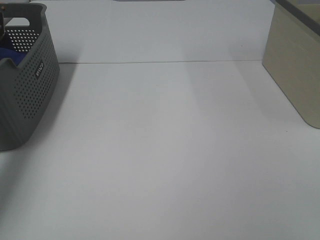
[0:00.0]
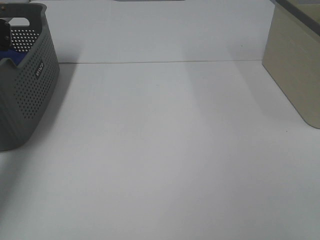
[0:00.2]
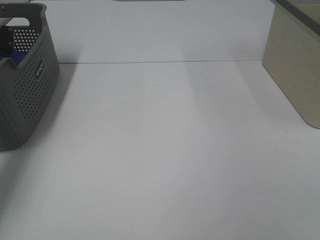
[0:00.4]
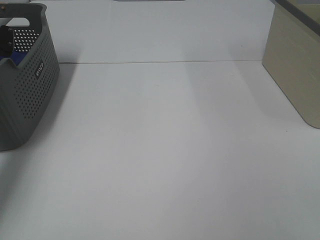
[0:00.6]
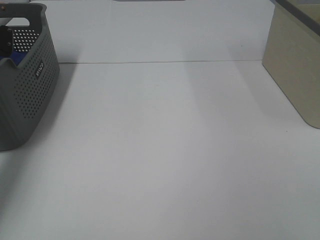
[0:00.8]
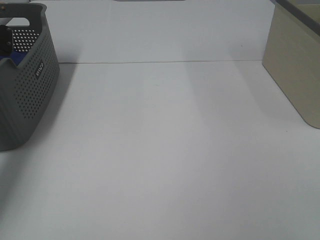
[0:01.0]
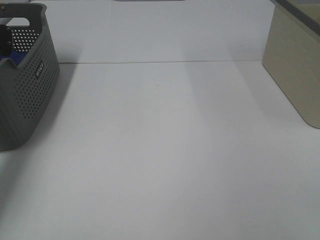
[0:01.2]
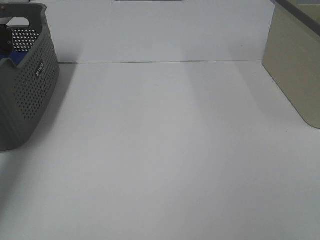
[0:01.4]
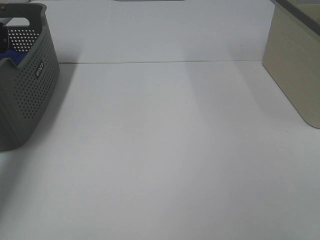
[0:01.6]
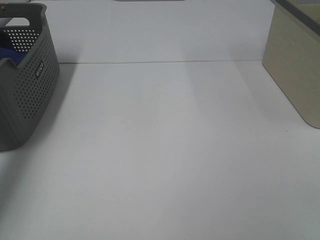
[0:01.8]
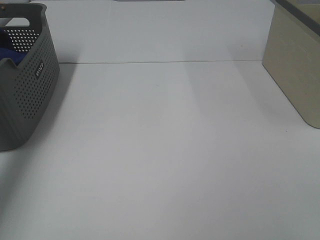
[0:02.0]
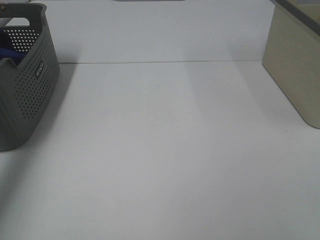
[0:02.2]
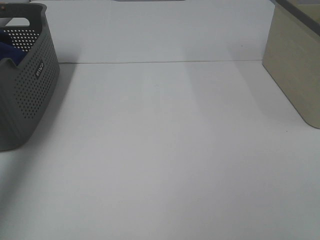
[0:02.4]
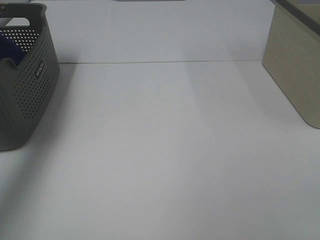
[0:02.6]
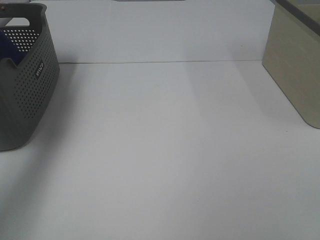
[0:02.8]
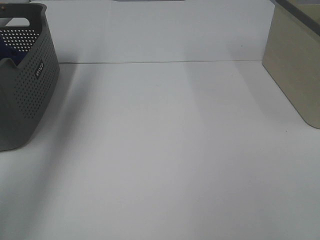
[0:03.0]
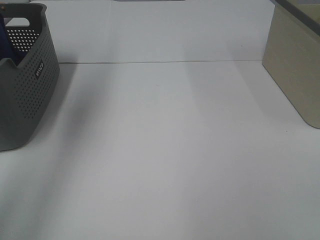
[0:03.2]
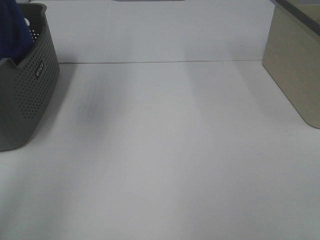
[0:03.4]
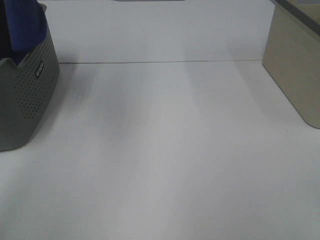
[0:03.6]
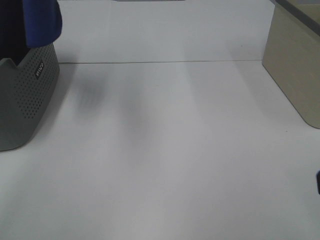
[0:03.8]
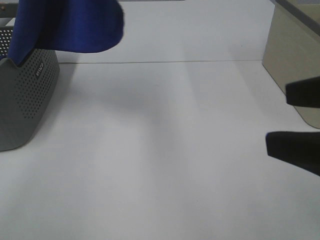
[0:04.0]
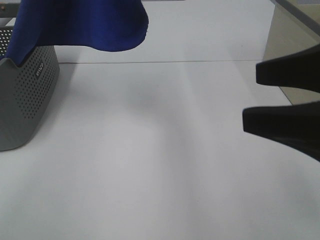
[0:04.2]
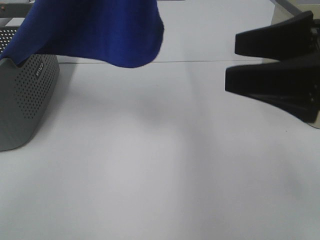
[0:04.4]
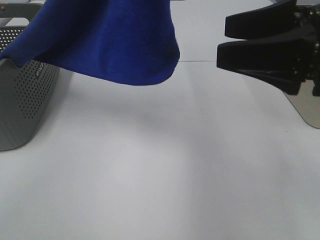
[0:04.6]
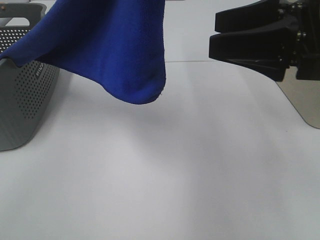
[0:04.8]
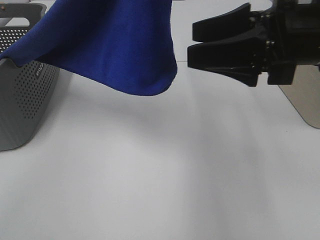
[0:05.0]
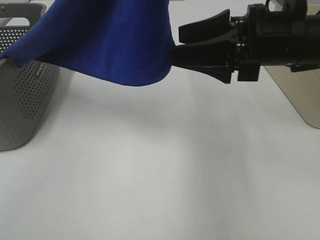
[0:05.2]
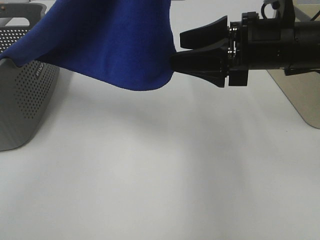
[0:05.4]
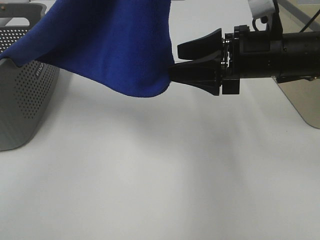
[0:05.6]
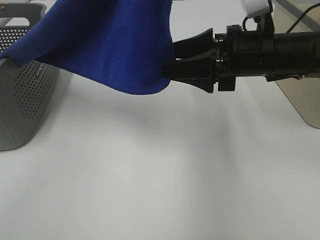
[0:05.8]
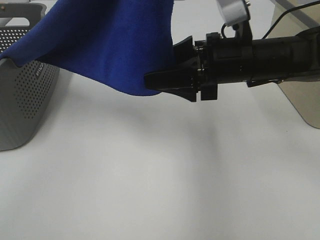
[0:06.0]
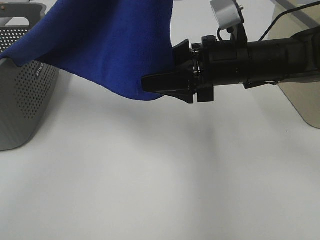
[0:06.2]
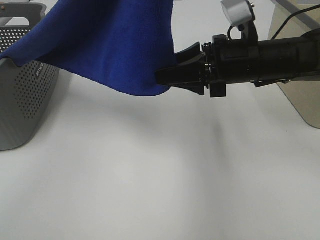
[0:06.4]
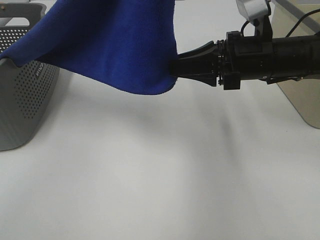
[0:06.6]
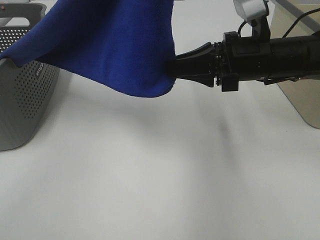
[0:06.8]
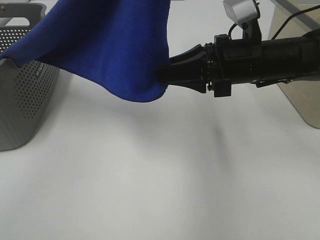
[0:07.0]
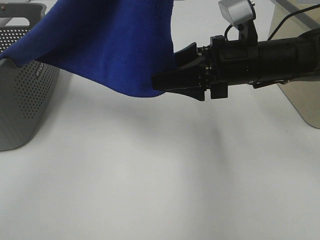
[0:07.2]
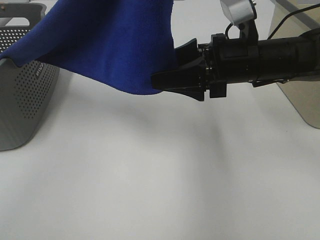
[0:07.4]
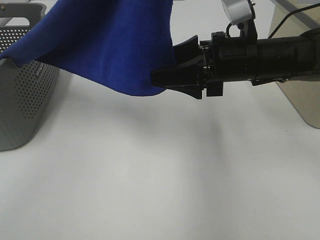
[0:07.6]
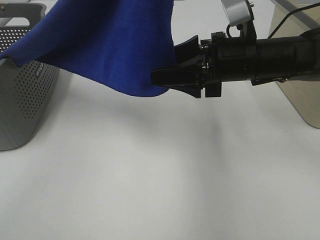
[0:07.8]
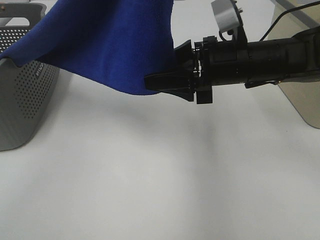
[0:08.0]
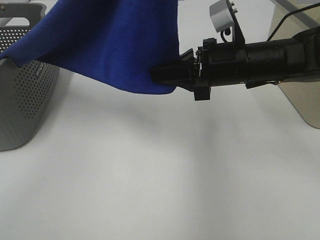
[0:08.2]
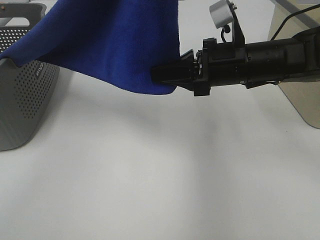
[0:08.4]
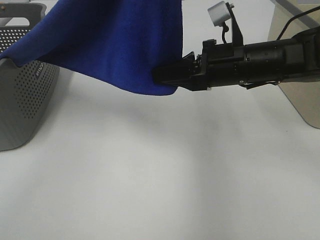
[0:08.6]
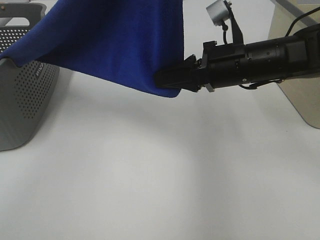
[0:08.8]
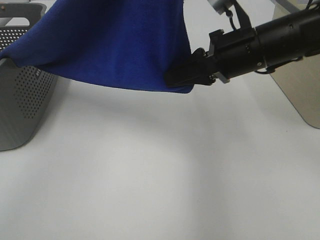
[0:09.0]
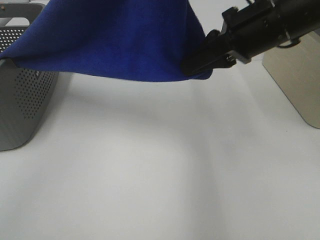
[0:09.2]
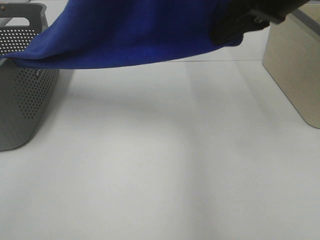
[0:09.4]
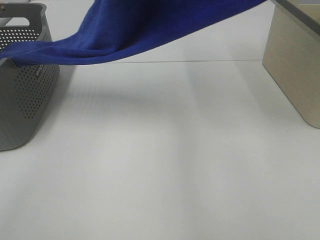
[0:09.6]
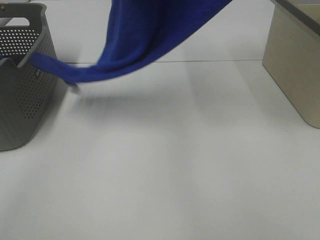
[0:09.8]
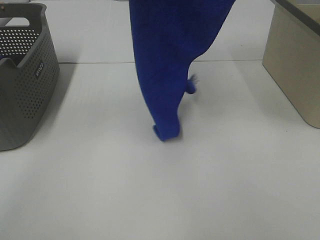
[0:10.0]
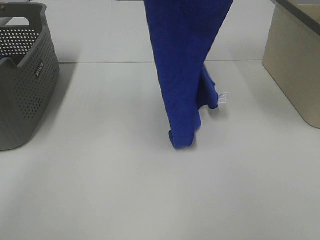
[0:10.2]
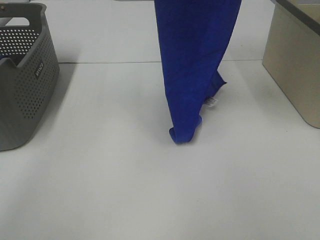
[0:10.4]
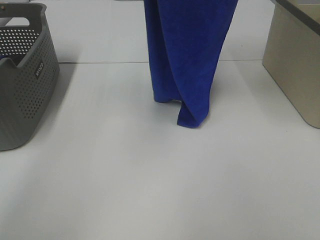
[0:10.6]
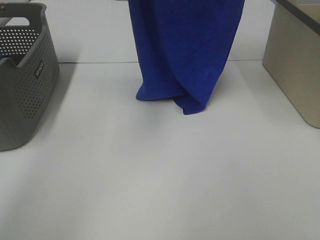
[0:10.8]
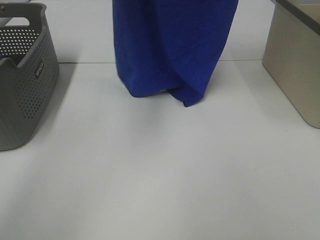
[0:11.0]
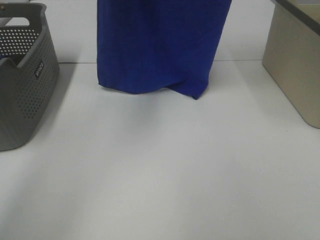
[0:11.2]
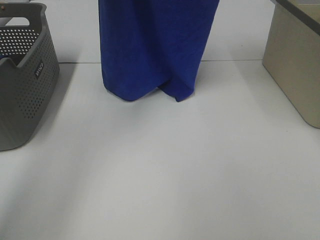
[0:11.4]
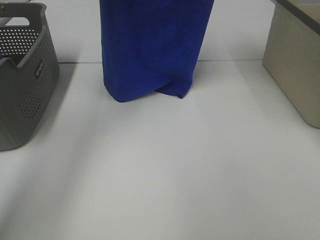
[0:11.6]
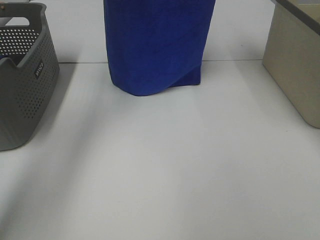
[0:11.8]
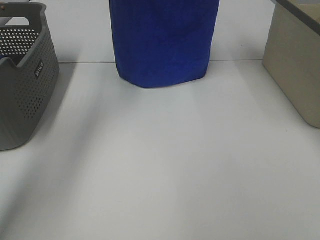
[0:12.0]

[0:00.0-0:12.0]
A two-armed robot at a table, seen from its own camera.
Task of the whole recording: Remove the towel and place it.
Step, 0:02.6 to 0:08.4: Right hand: grab a corner of the blue towel and straighten it.
0:01.6 to 0:03.0: The left gripper travels upward by approximately 25 cm.
0:03.0 to 0:04.4: The right gripper shifts approximately 20 cm forward; the left gripper goes roughly 30 cm to the right and backward.
0:04.4 to 0:06.0: The right gripper moves forward, downward and to the left, about 20 cm.
0:06.0 to 0:07.6: The right gripper closes, then opens again.
0:07.6 to 0:09.0: The right gripper closes.
0:09.0 to 0:10.4: The right gripper shifts roughly 25 cm upward. Meanwhile the left gripper travels forward and to the left by roughly 15 cm.
0:10.4 to 0:12.0: The left gripper travels forward and to the left by approximately 15 cm. The right gripper is displaced forward by some 10 cm.

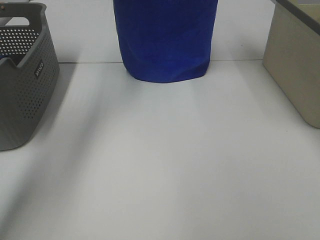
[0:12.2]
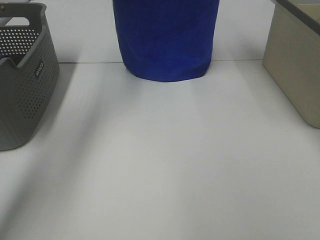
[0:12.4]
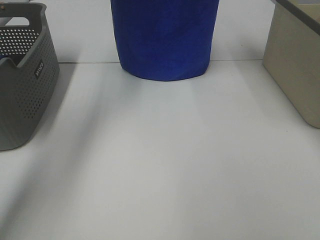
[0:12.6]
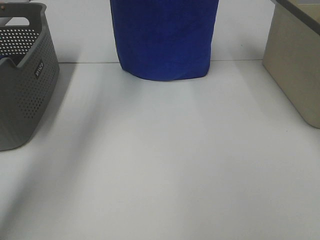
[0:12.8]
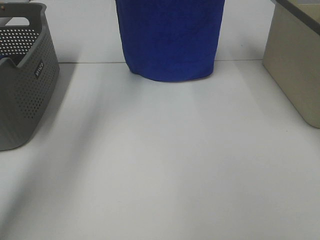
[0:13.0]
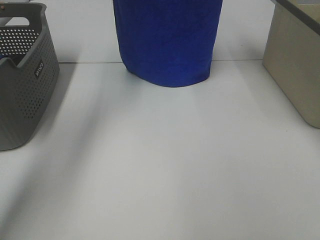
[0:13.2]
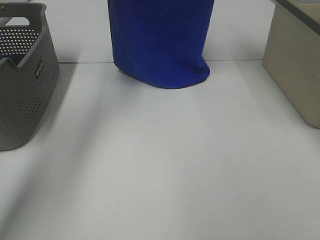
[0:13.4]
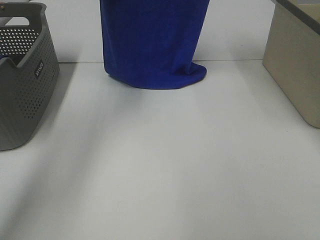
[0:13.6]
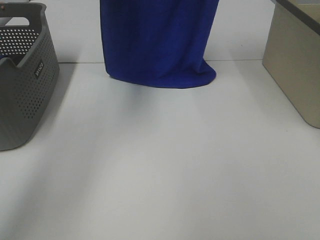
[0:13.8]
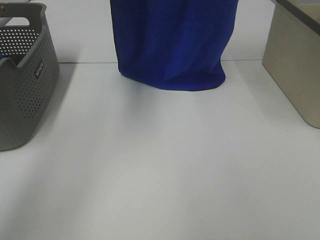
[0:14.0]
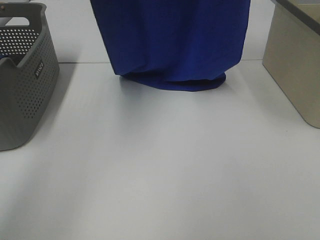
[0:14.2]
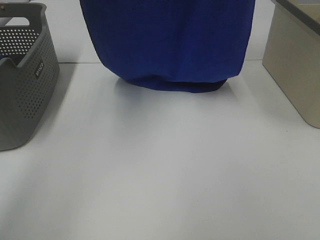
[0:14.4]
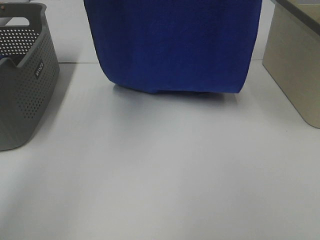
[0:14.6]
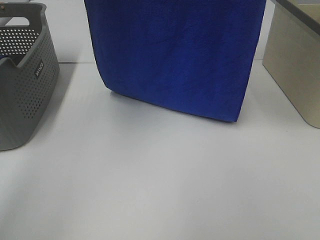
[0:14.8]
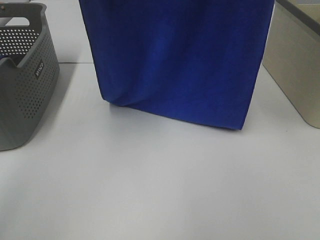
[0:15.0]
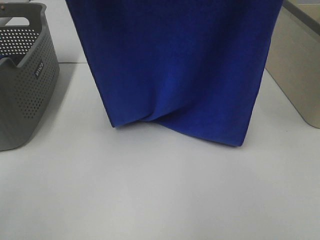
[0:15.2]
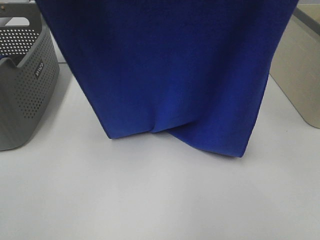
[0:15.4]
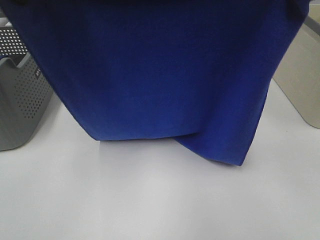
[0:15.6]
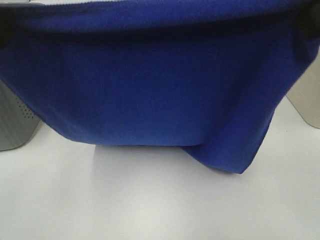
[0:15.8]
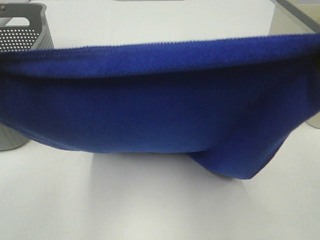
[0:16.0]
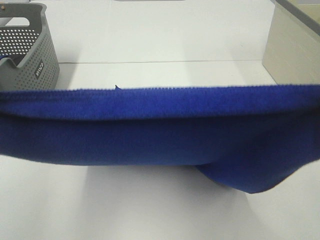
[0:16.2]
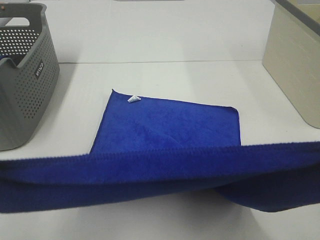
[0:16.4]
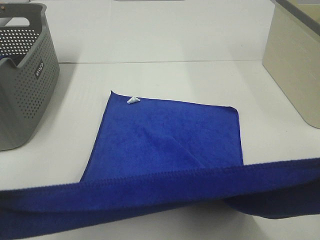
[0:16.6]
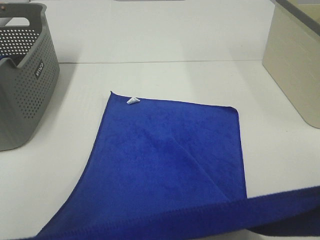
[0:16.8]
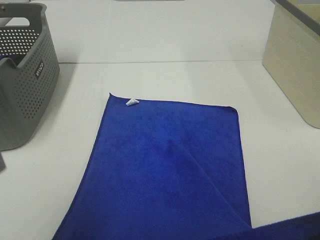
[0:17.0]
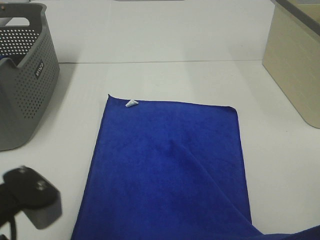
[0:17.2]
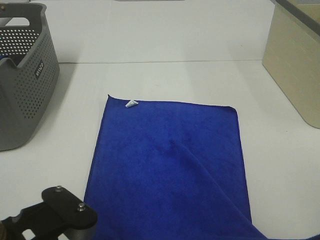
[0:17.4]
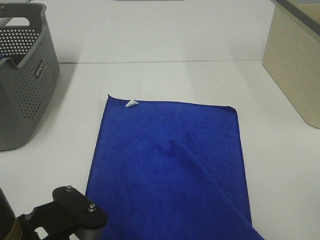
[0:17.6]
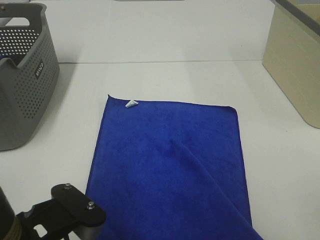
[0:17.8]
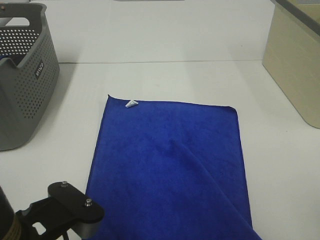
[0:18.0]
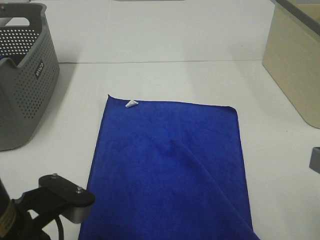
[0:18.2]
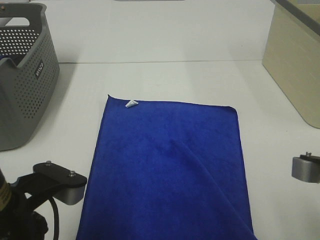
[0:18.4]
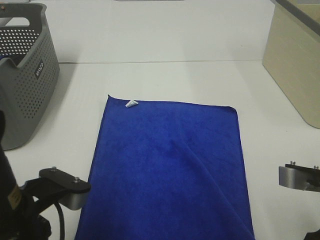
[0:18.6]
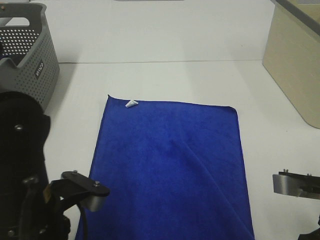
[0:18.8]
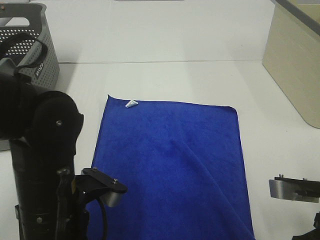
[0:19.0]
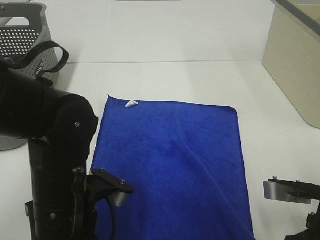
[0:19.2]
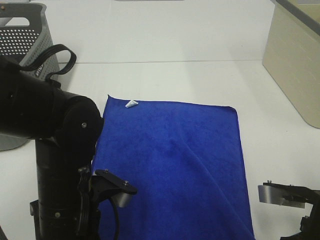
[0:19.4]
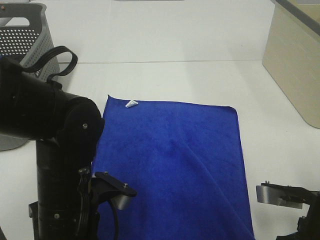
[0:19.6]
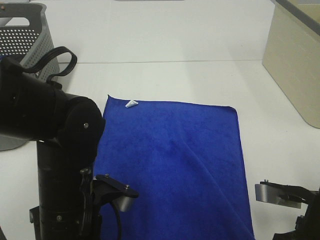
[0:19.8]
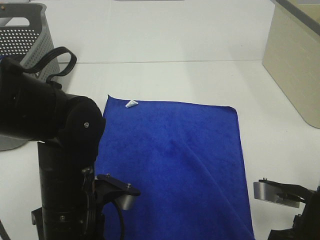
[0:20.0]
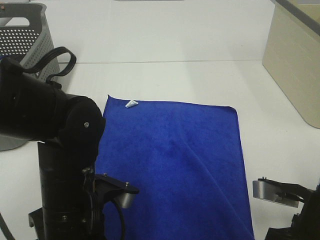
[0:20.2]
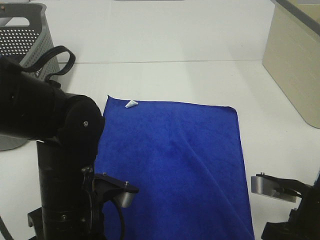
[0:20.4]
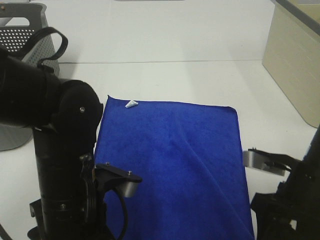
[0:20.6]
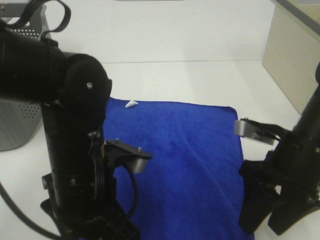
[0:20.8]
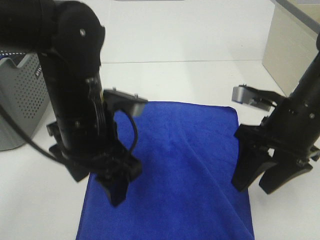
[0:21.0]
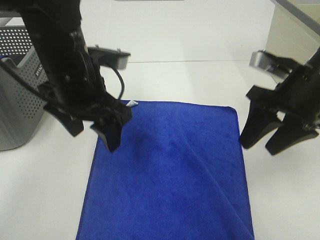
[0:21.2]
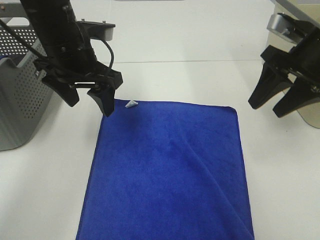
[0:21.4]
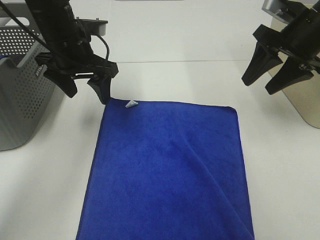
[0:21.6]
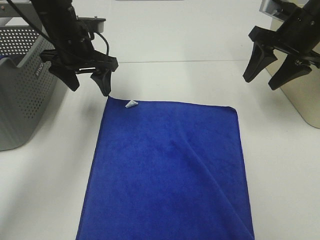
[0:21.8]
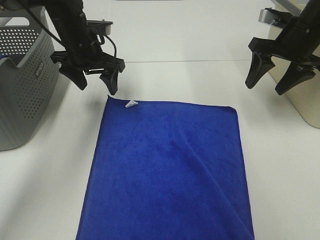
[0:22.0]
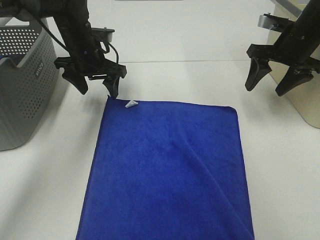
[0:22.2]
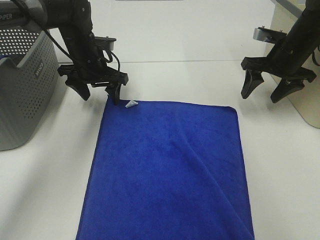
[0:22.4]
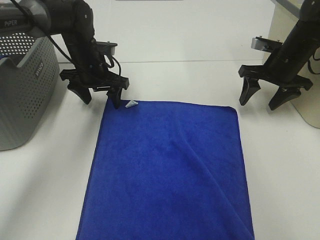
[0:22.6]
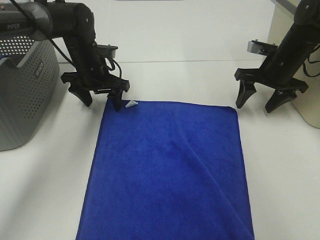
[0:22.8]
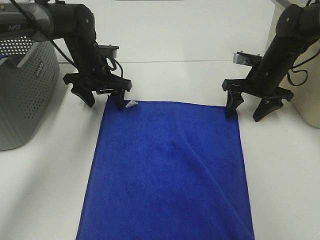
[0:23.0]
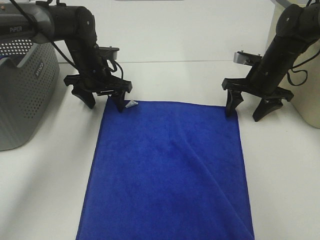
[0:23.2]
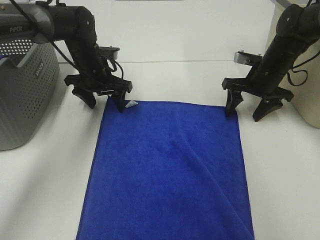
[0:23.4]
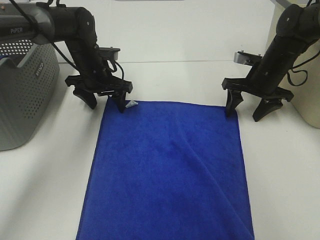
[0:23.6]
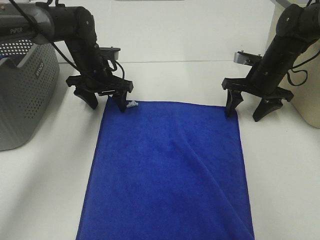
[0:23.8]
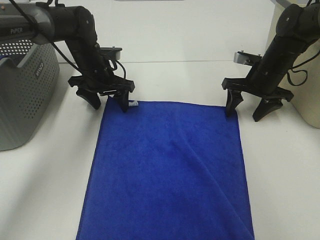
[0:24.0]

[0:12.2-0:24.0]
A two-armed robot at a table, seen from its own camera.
Task of the whole recording: Remove the towel and place it.
Step, 0:12.2 to 0:15.0: Left hand: spread the blue towel flat on the table.
Step, 0:12.2 to 0:15.0: Right hand: spread the blue towel flat on the table.
Step, 0:15.2 to 0:22.0: Left hand:adjust the blue towel.
Step, 0:15.2 to 0:24.0: Right hand:adjust the blue towel.
0:13.6 to 0:15.2: The grippers both shift backward by about 20 cm.
0:15.2 to 0:16.6: The two grippers go roughly 25 cm backward and downward.
0:16.6 to 0:18.2: The left gripper goes some 15 cm downward and to the right. The right gripper travels downward by approximately 10 cm.
0:18.2 to 0:19.6: The left gripper moves forward and downward, about 10 cm, while the right gripper heads downward, covering roughly 10 cm.
0:19.6 to 0:21.0: The grippers both shift forward and upward by roughly 10 cm. The right gripper opens up, while the left gripper opens.
0:21.0 to 0:22.6: The grippers both shift forward by approximately 20 cm.
0:22.6 to 0:24.0: The grippers stay close to where they were, moving slightly.
